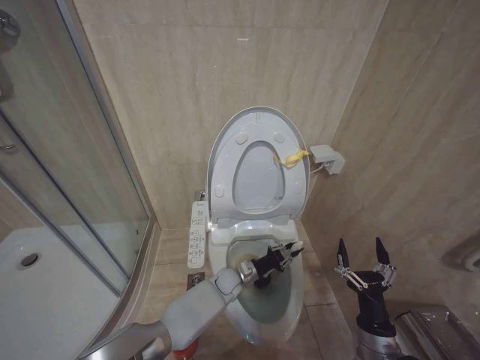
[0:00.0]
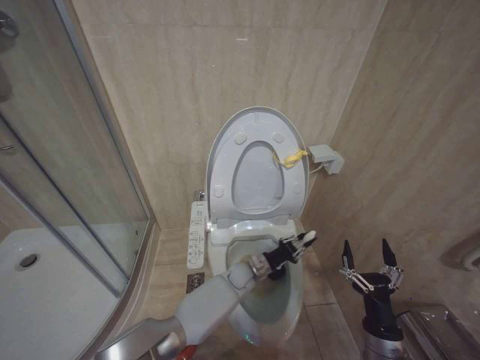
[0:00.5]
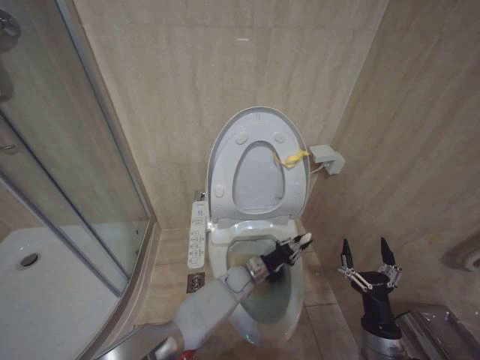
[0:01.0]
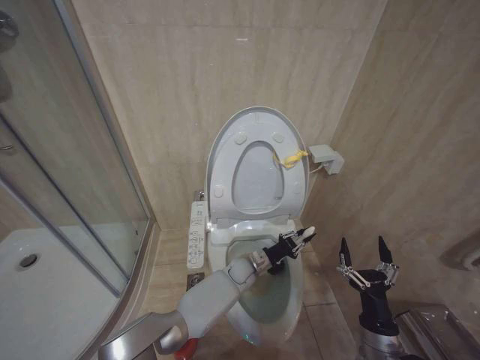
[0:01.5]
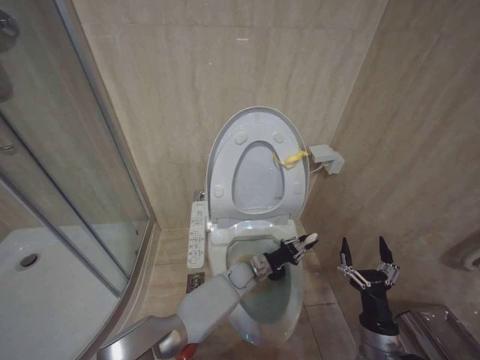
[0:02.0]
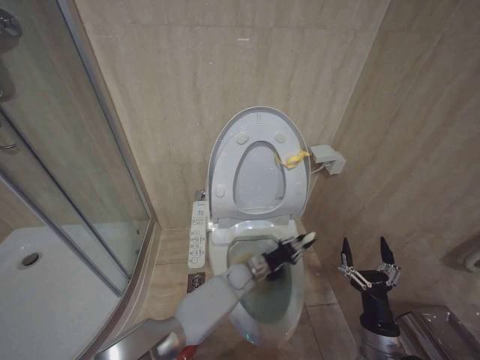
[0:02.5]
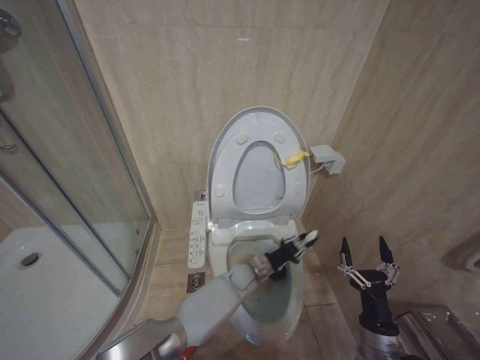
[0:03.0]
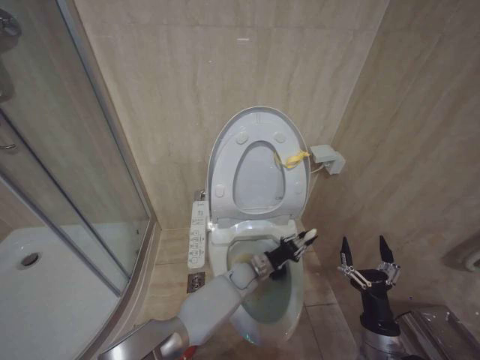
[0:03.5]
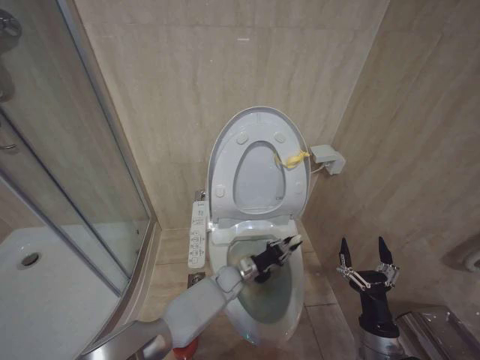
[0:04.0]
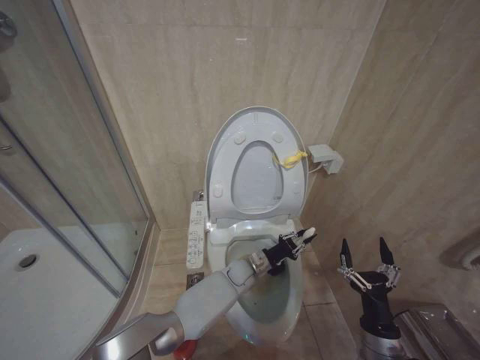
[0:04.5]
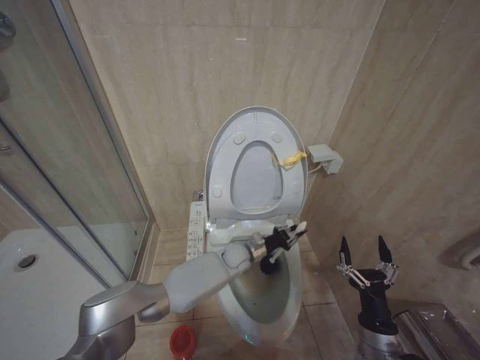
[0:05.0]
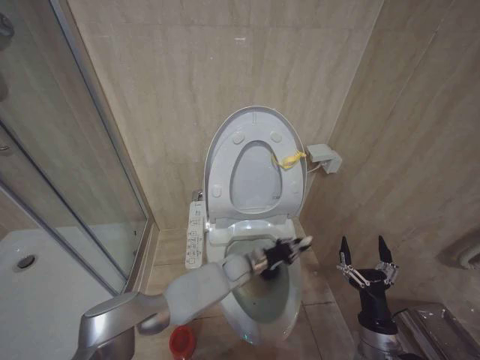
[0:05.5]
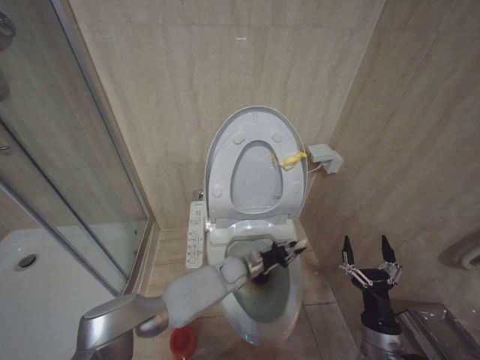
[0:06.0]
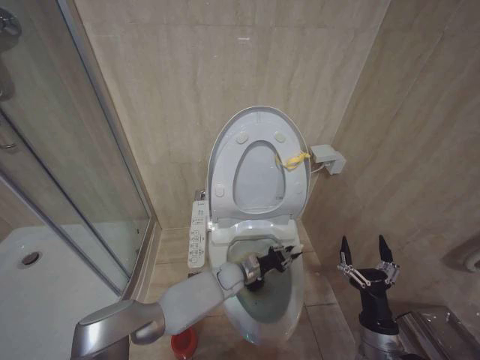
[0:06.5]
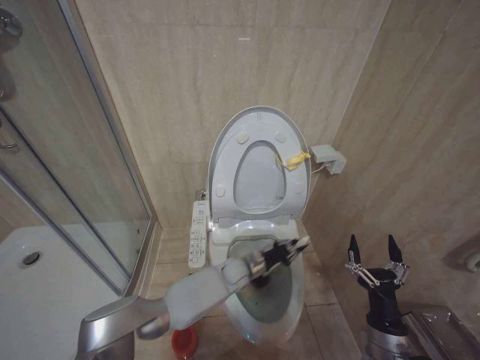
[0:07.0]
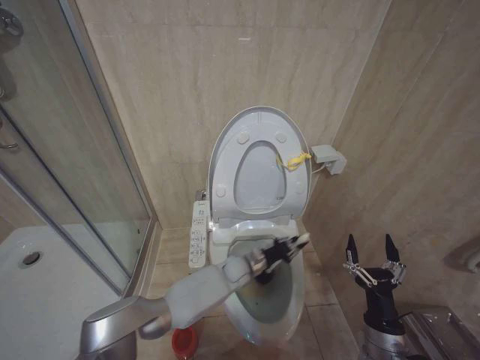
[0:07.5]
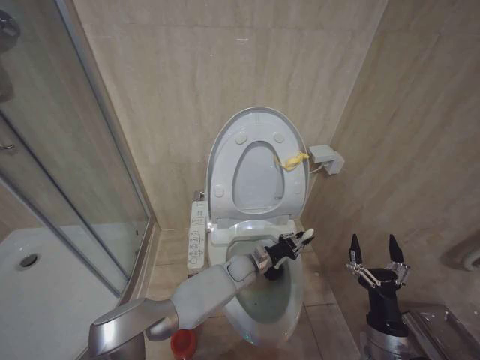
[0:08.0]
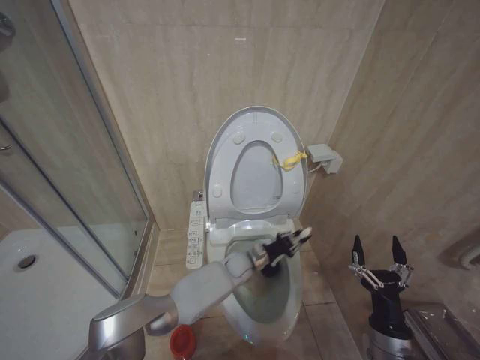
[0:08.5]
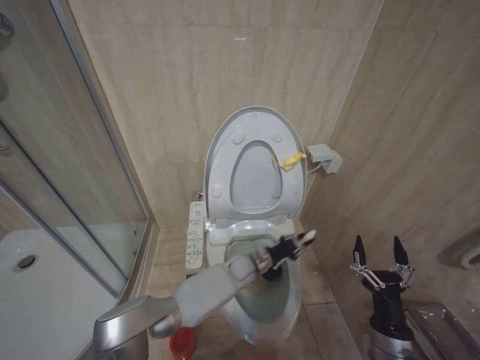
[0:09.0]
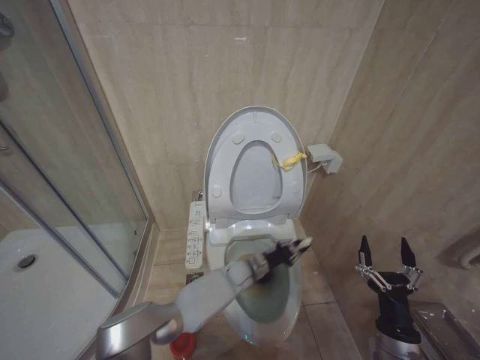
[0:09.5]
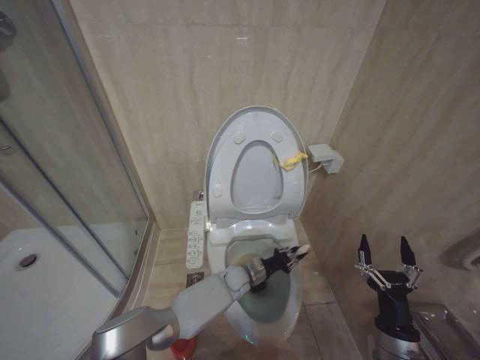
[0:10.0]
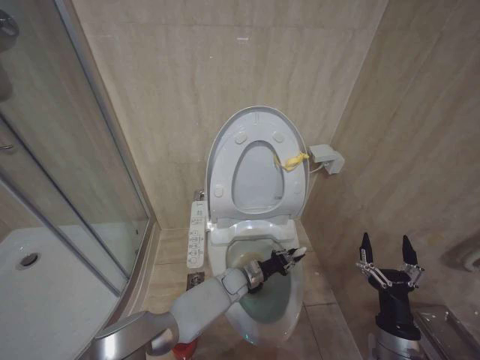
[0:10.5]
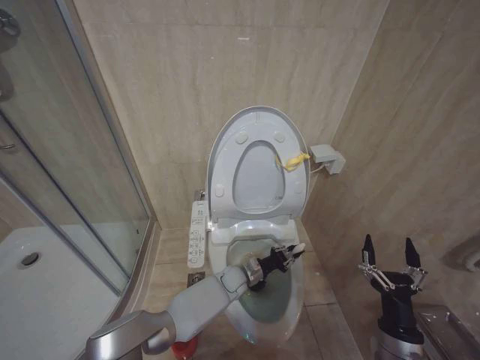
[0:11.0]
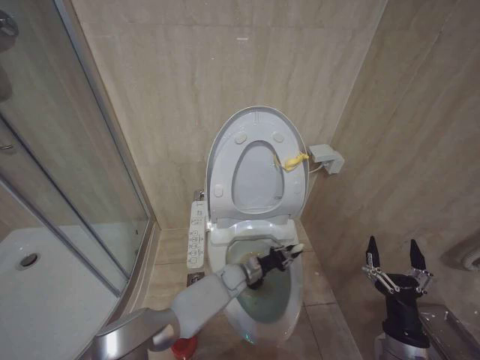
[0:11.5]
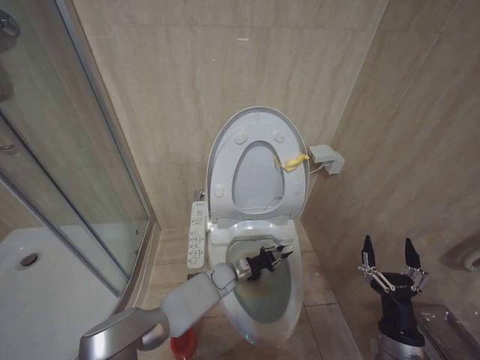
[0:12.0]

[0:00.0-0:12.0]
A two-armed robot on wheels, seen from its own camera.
Task of the whole recording: Open the toilet lid, clean the toilet bowl with a toilet brush, close the toilet lid, and flush.
0:02.0 to 0:04.0: The left gripper moves approximately 5 cm.
0:04.0 to 0:06.0: The left gripper is displaced upward by about 5 cm.
0:06.0 to 0:10.0: The grippers move only a little.
0:10.0 to 0:12.0: The left gripper travels to the left by about 5 cm.

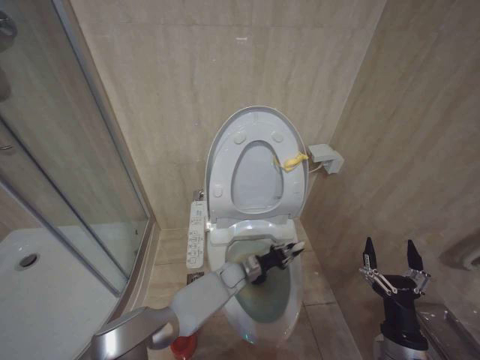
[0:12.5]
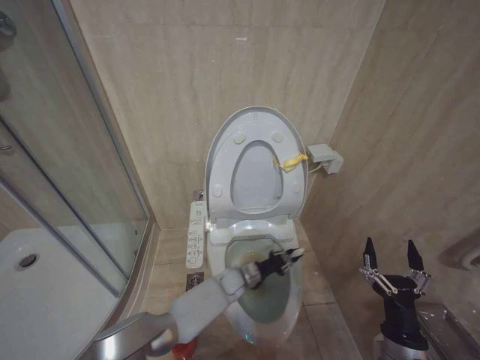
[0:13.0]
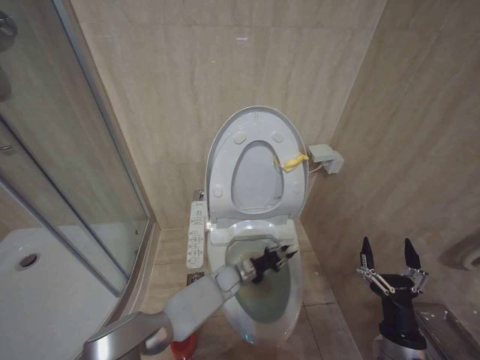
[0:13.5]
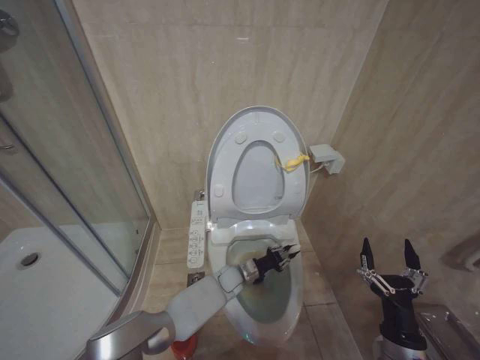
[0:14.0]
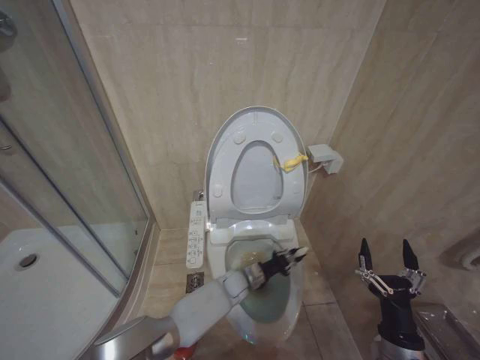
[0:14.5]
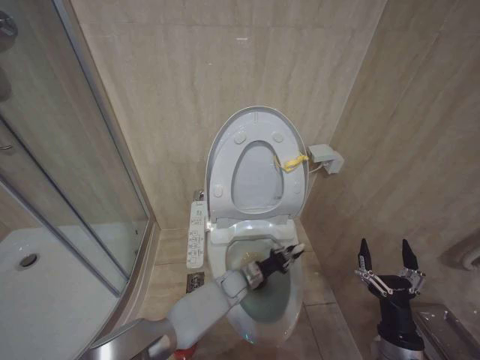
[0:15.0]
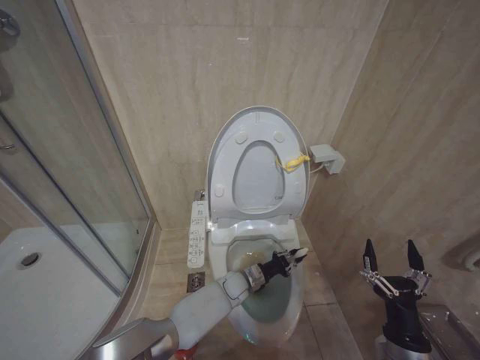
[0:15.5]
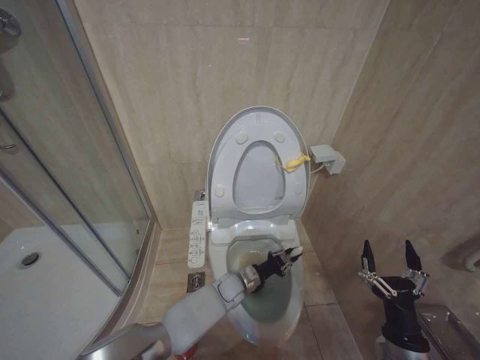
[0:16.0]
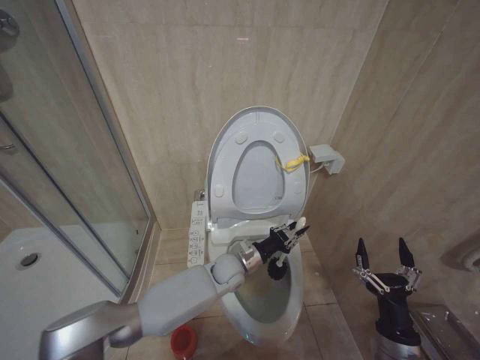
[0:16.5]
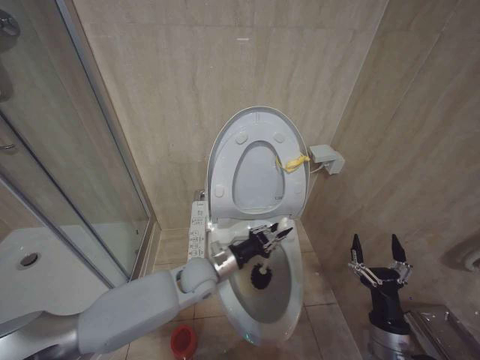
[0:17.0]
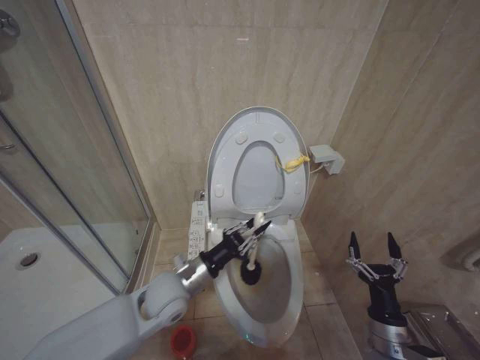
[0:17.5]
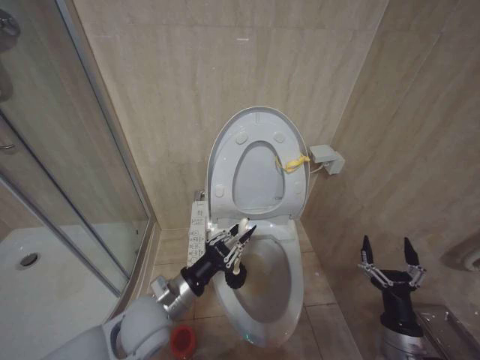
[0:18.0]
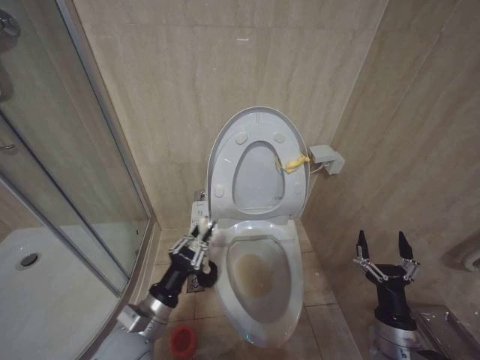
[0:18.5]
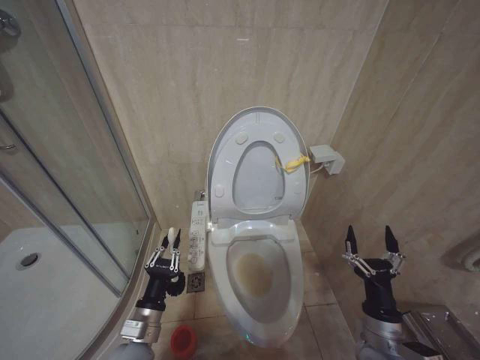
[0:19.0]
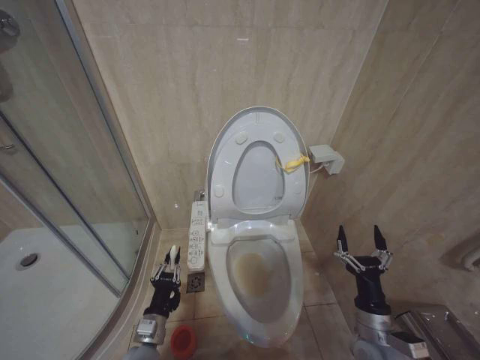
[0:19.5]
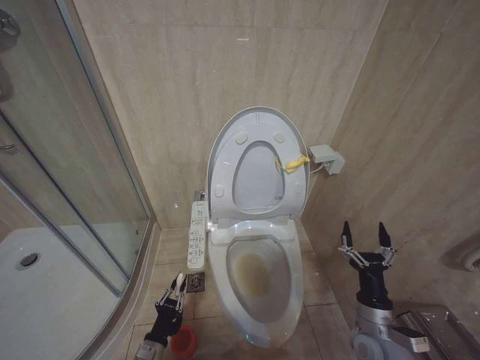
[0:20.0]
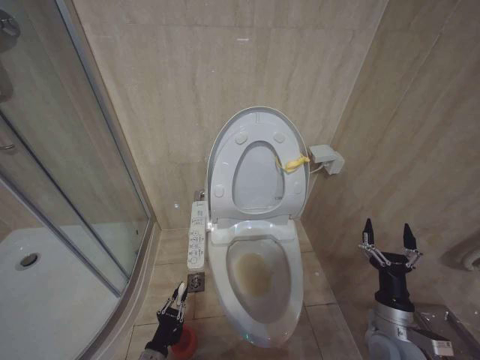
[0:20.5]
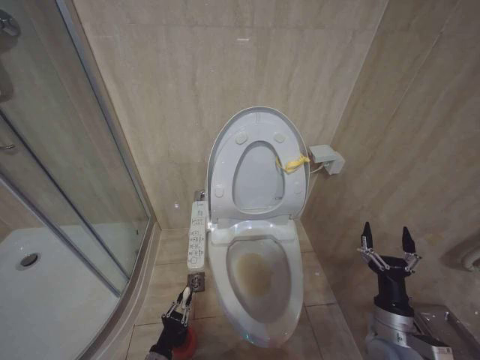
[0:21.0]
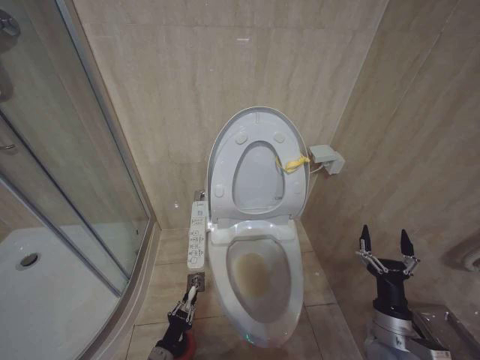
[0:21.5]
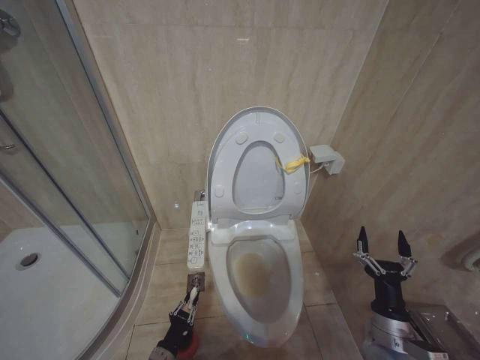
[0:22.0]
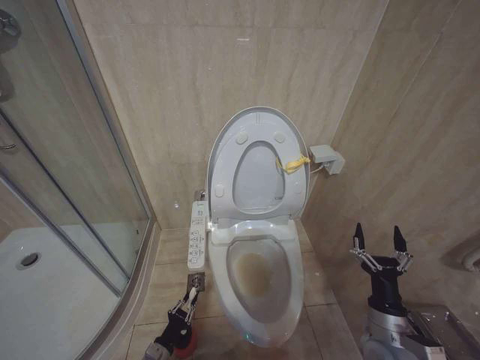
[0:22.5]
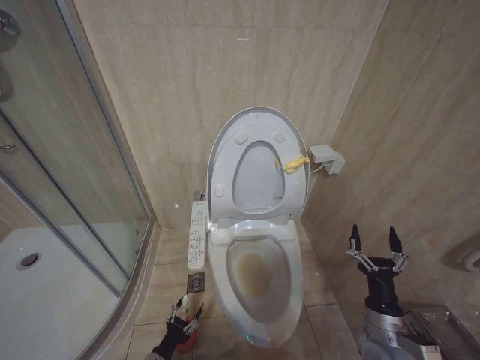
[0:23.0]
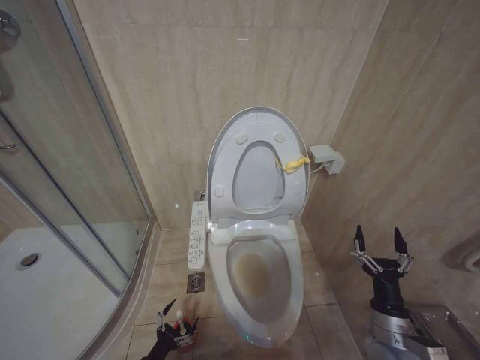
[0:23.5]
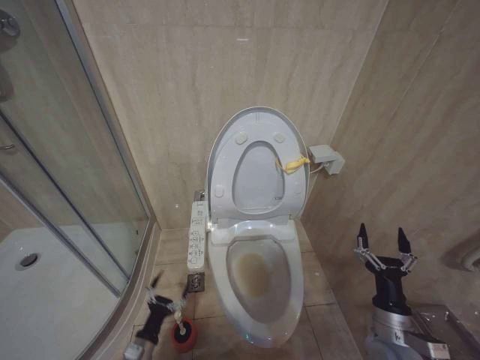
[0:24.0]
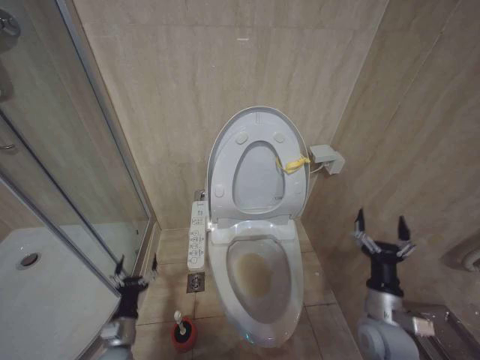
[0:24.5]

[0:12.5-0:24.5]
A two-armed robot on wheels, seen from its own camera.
Task of the whole recording: Open the toilet lid, clean the toilet bowl with a toilet brush, close the toilet lid, and flush.
0:14.5 to 0:16.5: The left gripper shifts roughly 10 cm upward.
0:16.5 to 0:18.5: The left gripper travels to the left, backward and upward by about 30 cm.
0:18.5 to 0:20.5: The left gripper is displaced downward by about 25 cm.
0:20.5 to 0:22.5: The left gripper changes place by roughly 5 cm.
0:22.5 to 0:24.5: The left gripper is displaced upward by about 10 cm, and opens.

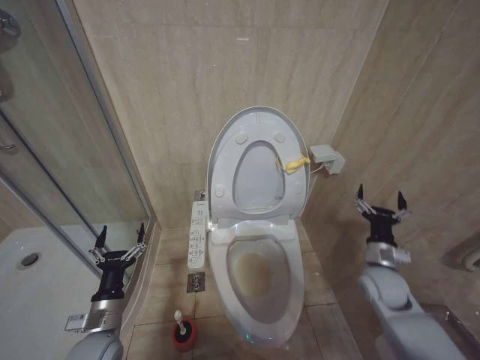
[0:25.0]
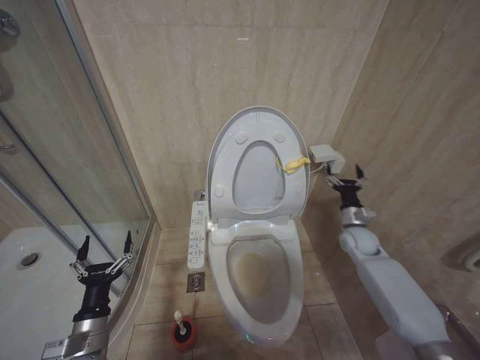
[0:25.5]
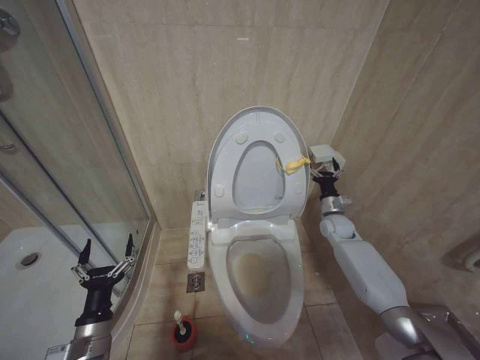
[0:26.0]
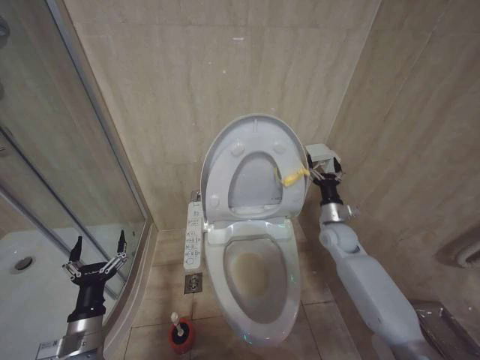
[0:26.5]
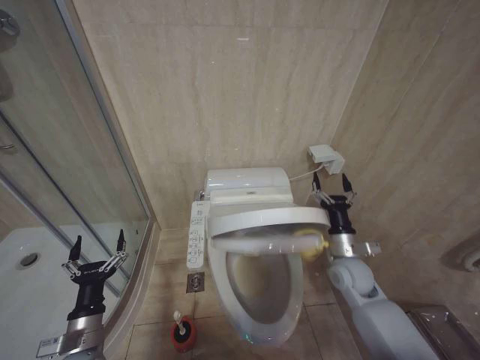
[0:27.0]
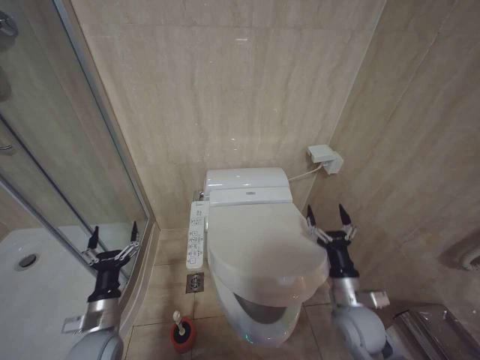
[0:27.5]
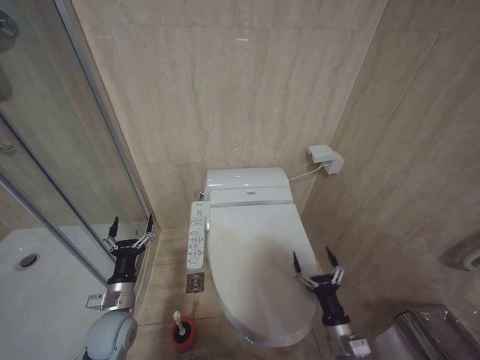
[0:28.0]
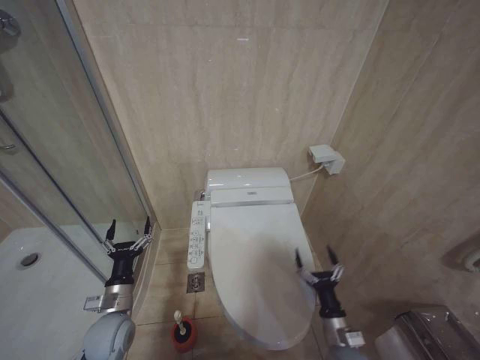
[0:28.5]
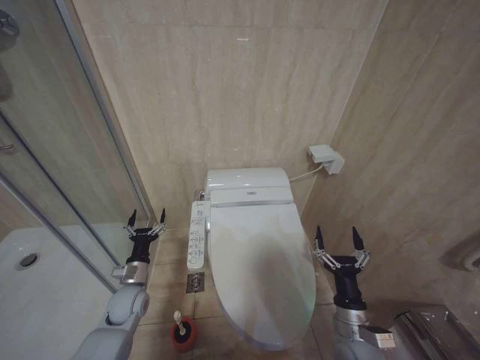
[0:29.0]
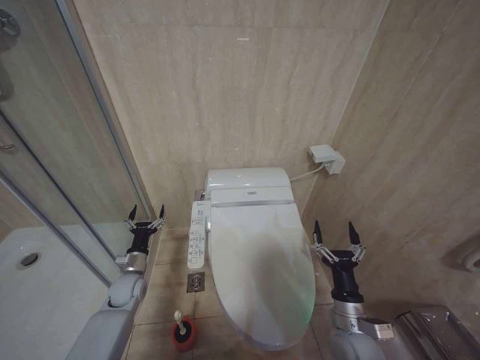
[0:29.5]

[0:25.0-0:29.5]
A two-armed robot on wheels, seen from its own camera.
Task of the whole recording: Open the toilet lid, clean the toilet bowl with a toilet brush, close the toilet lid, and flush.
0:25.0 to 0:27.0: The right gripper heads to the left, covering roughly 5 cm, and goes forward and returns, about 20 cm each way.
0:27.0 to 0:29.5: The left gripper heads forward, covering about 20 cm. The right gripper shifts about 15 cm backward and downward.
